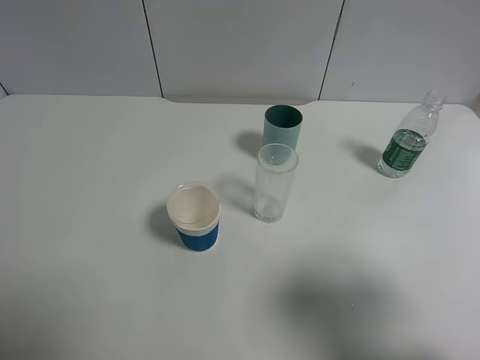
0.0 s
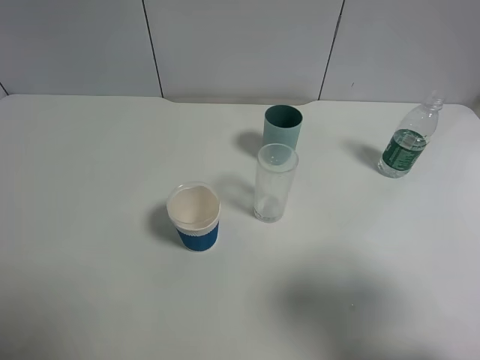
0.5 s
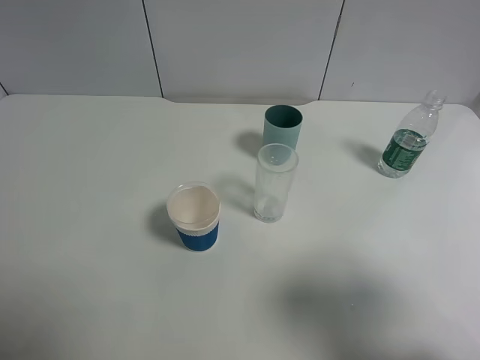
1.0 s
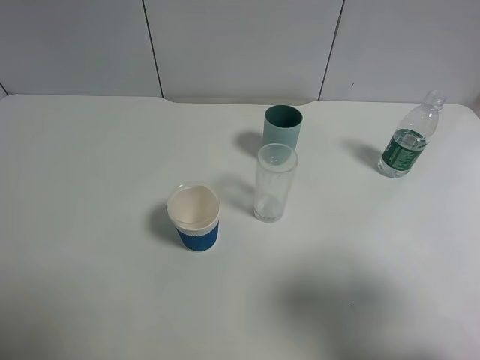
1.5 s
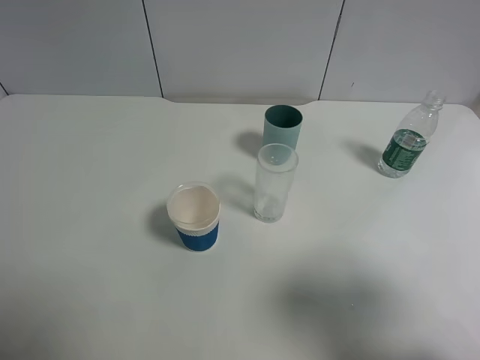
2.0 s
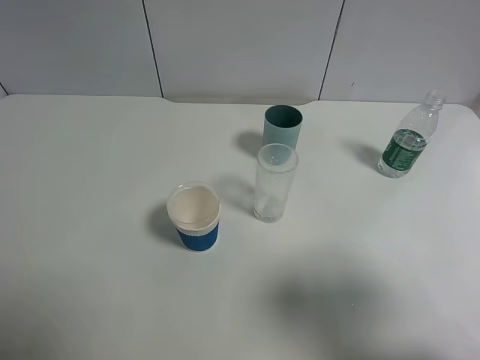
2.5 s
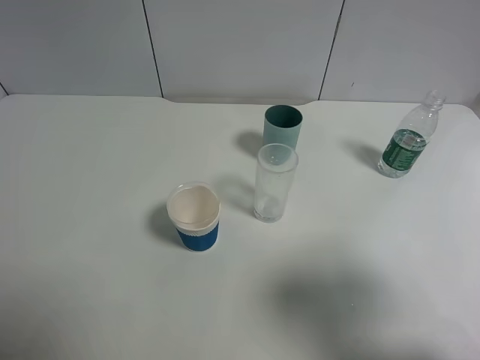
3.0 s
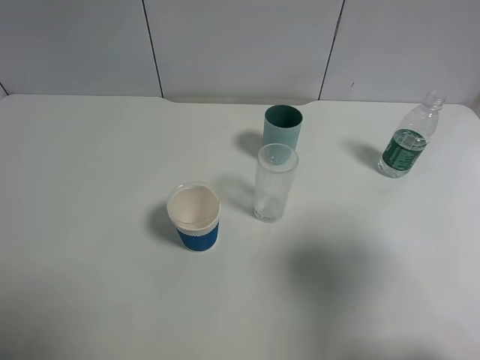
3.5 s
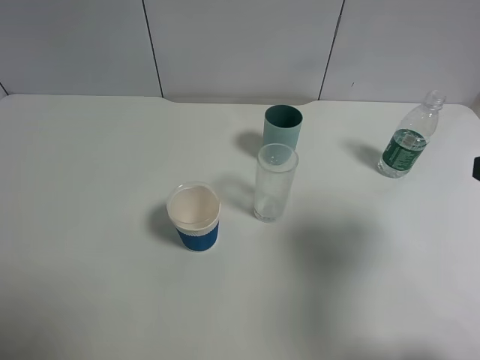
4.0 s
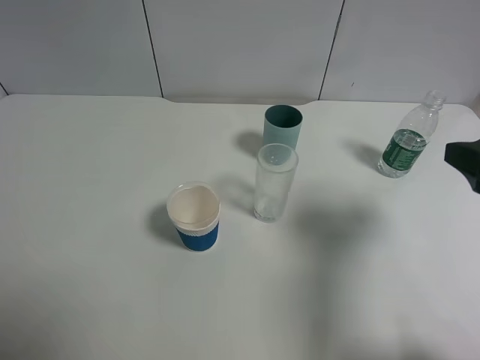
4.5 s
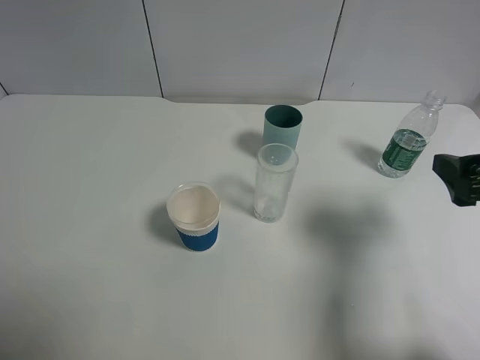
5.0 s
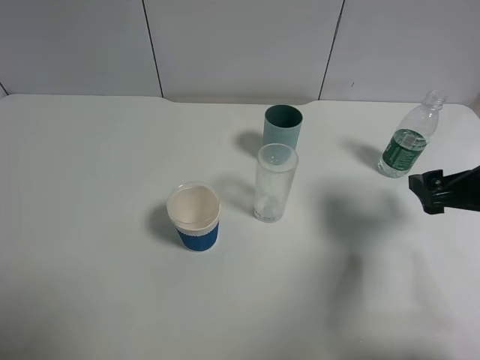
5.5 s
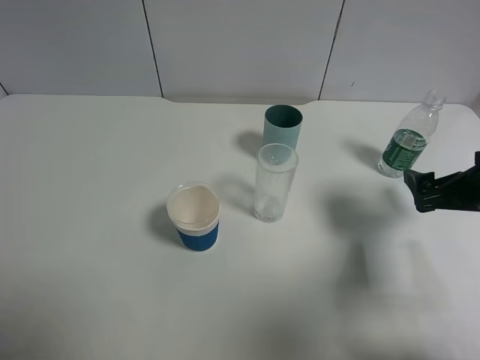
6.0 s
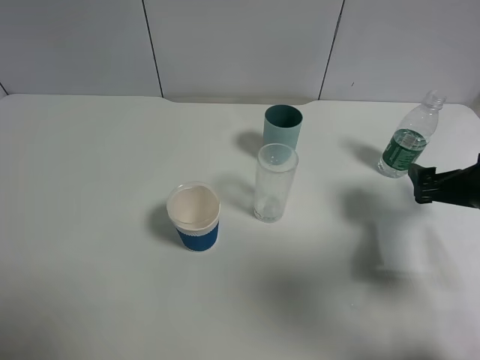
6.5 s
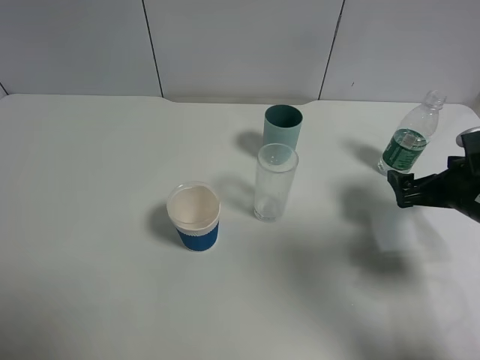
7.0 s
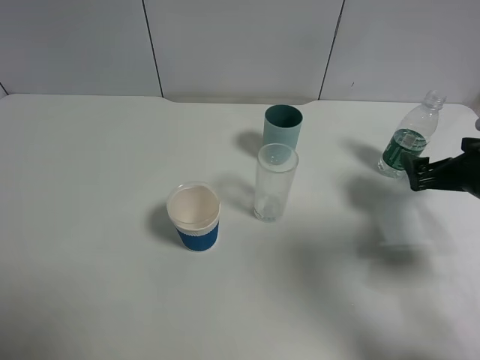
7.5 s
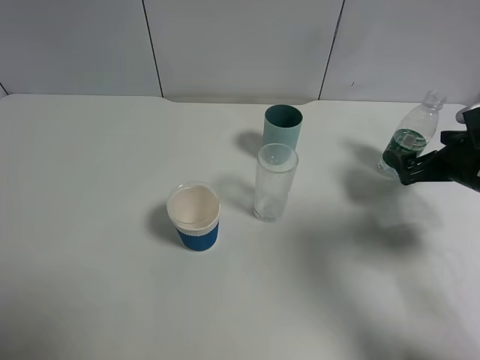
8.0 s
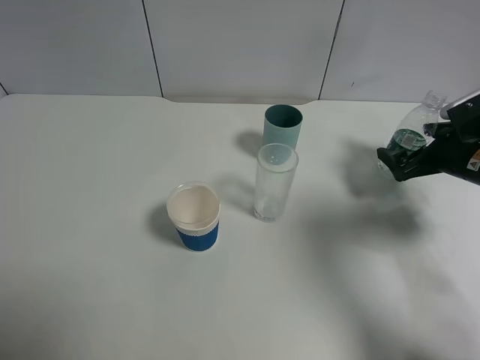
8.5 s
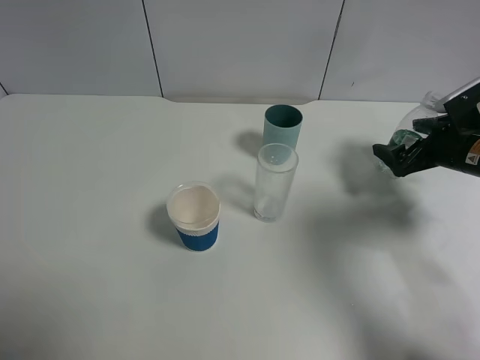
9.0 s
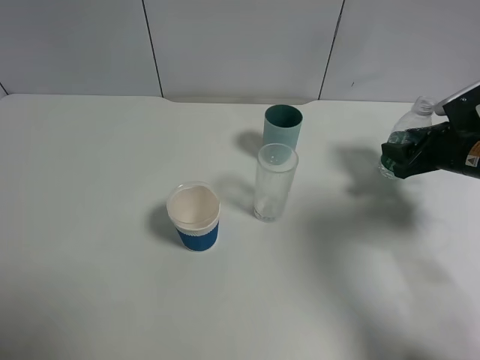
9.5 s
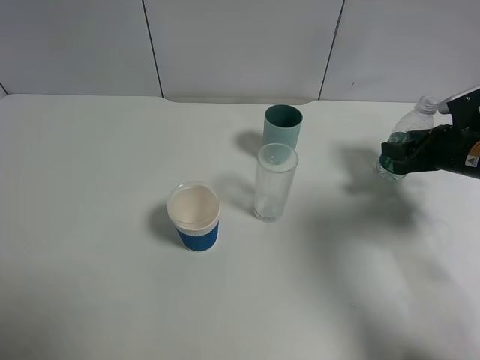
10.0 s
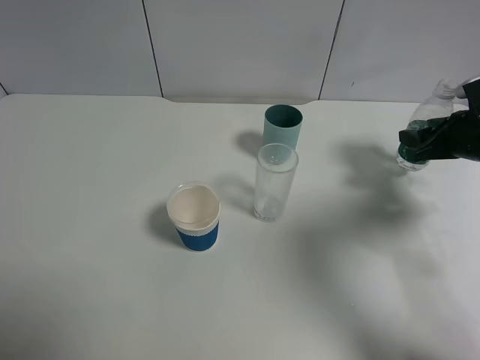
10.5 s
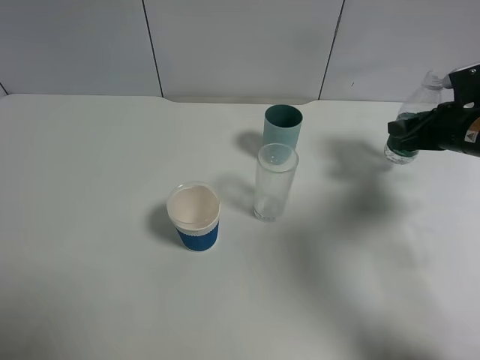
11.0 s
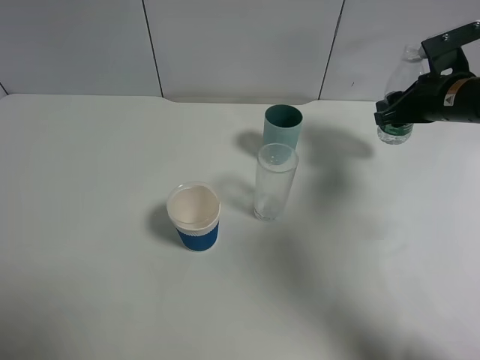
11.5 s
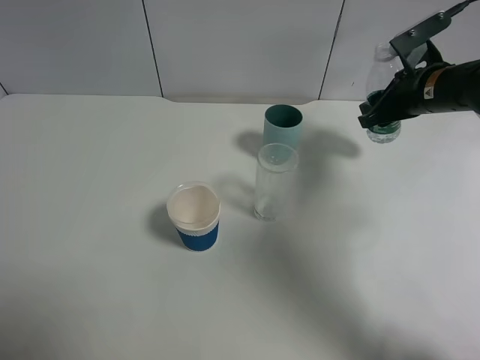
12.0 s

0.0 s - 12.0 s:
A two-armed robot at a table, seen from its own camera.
Task of the whole recording: use a gripper to hold the bottle of the drink and pour it into a random cup.
Step, 0.0 s - 10.0 s: Grasp the mineral water bottle with the right gripper.
0.0 s - 2.0 s: Neither gripper changes place.
2.0 s - 4.0 s: The right gripper moves forward, roughly 10 cm.
4.0 s - 6.0 s: The right gripper goes some 15 cm downward and forward.
6.0 s - 8.0 s: The right gripper moves forward and downward, about 10 cm.
8.0 s - 10.0 s: The right gripper closes.
10.0 s - 12.0 s: The right gripper heads upward and to the left, covering approximately 10 cm.

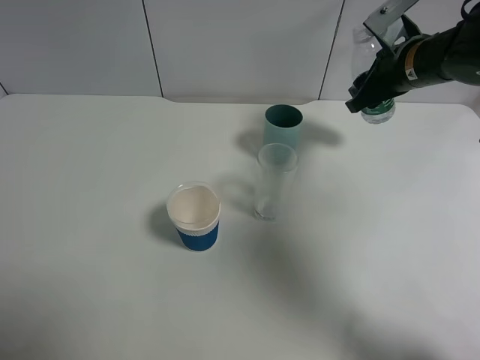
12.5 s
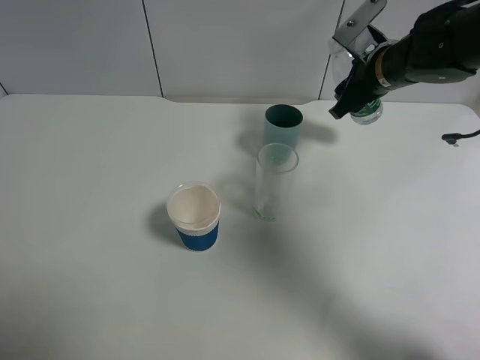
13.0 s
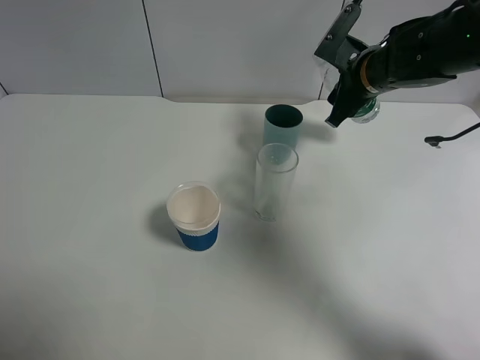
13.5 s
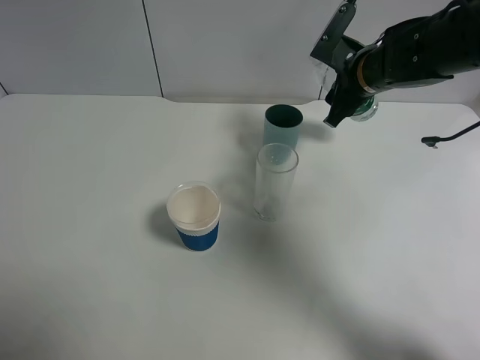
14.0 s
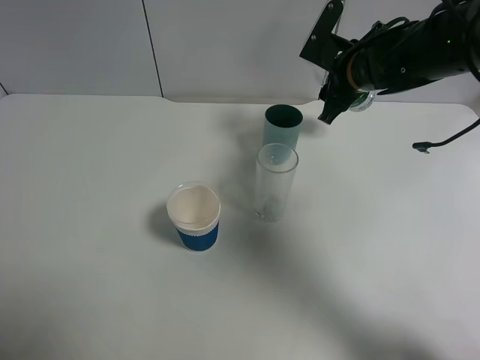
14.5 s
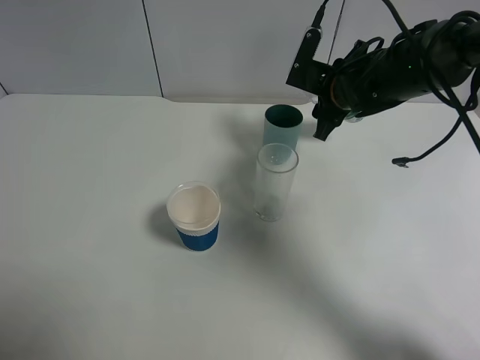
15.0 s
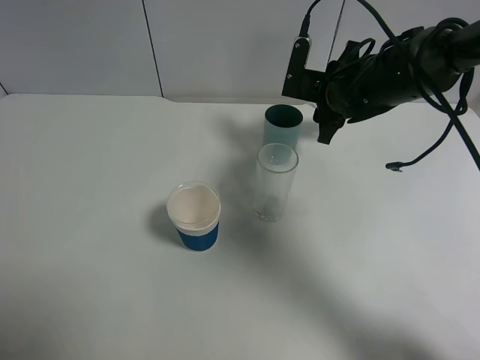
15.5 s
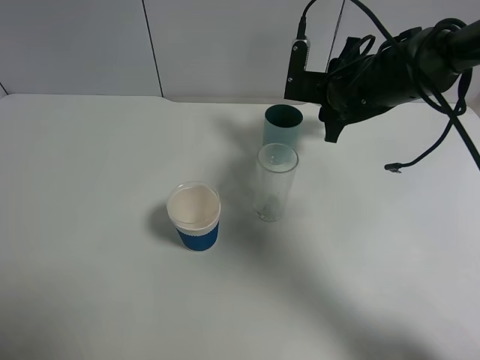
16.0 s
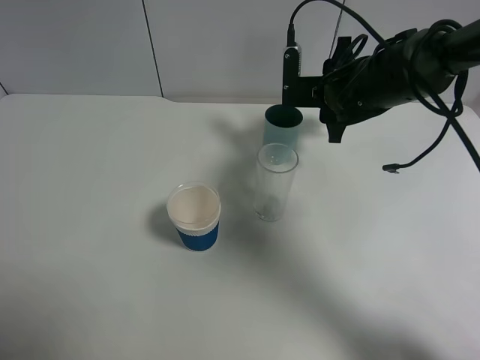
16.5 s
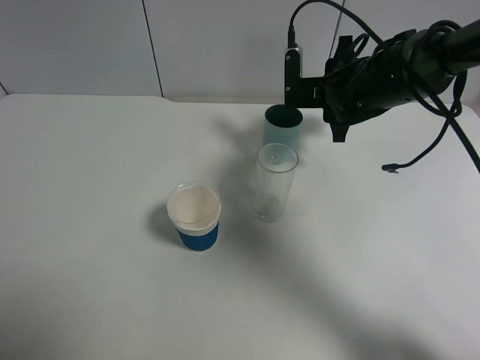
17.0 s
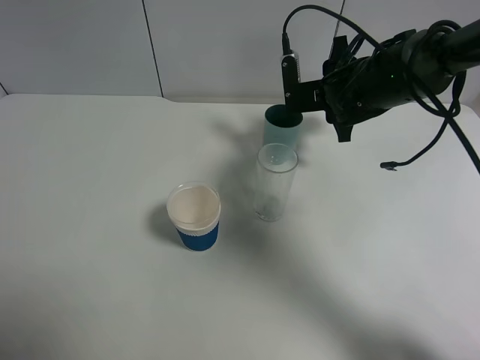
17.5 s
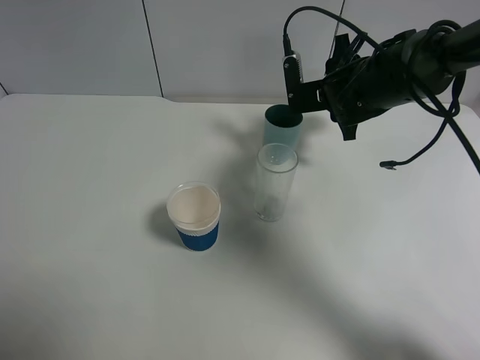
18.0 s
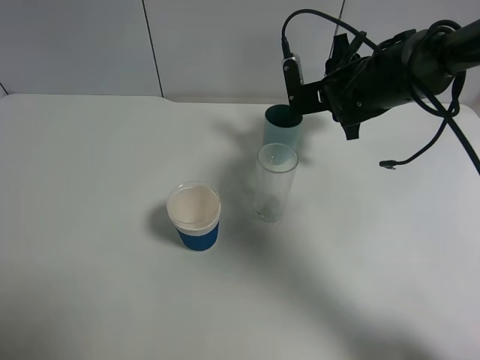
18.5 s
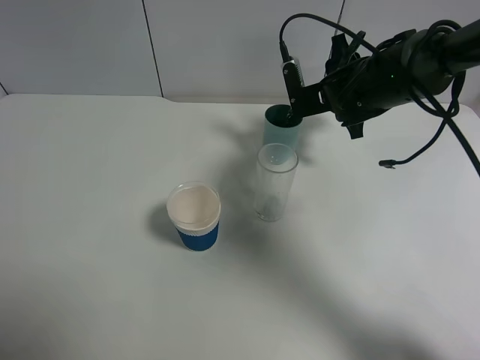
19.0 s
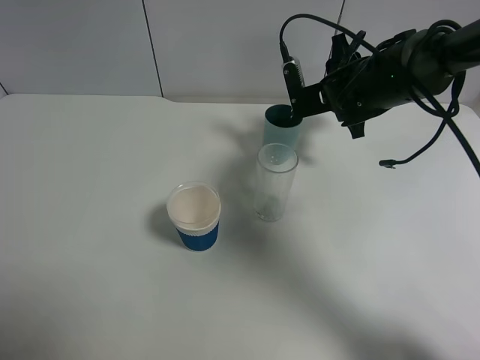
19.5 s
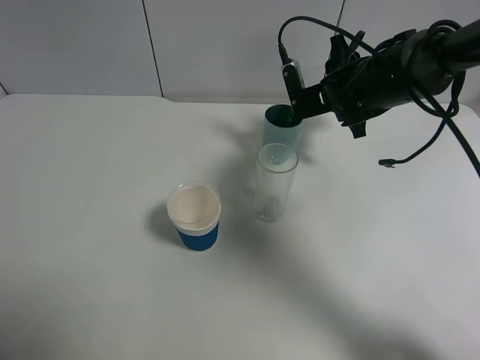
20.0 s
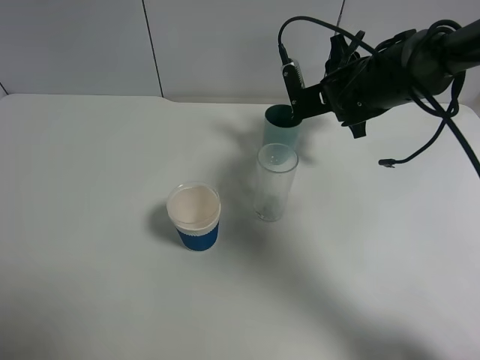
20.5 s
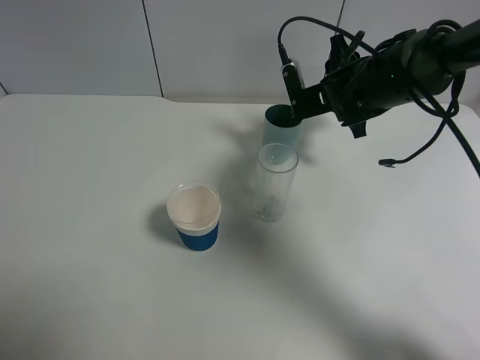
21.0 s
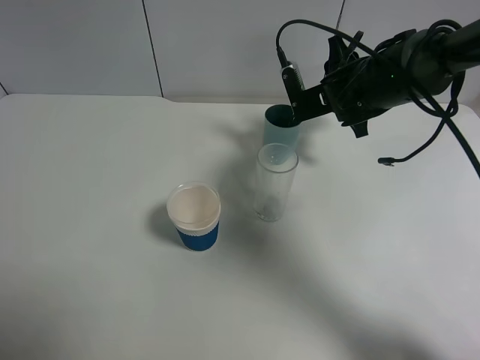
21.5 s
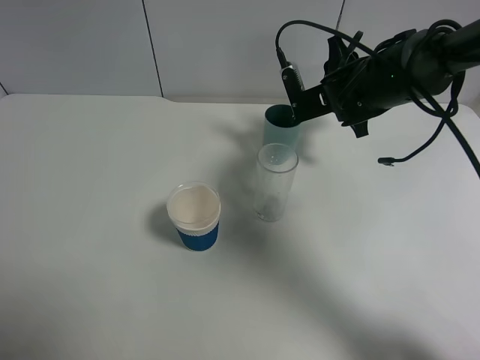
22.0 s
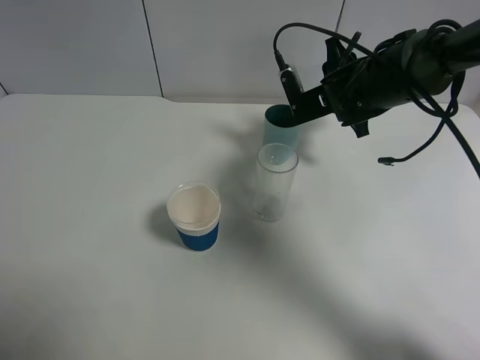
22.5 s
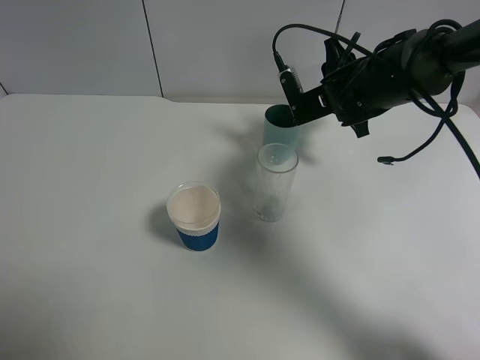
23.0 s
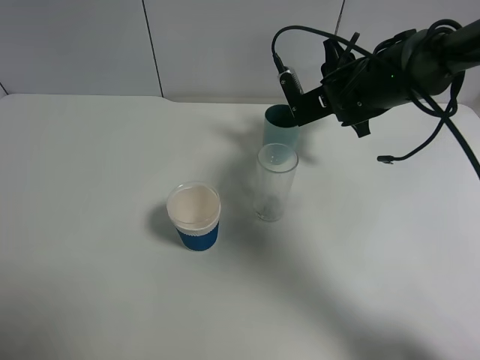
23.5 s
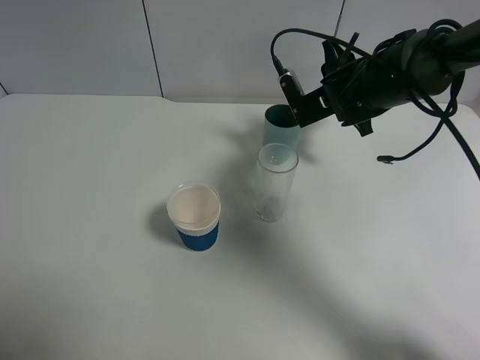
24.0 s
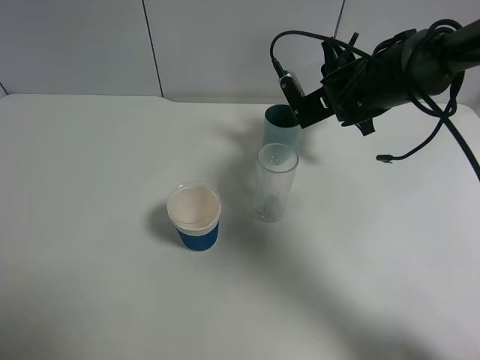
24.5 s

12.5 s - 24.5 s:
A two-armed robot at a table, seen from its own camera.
Task of the whole recording: use a gripper to hold the bottle of the drink and pour it into a random cup.
12.5 s - 14.5 s: The right gripper shifts roughly 5 cm to the left.
16.5 s - 20.5 s: The grippers move only a little.
20.5 s - 24.5 s: The grippers make only small movements.

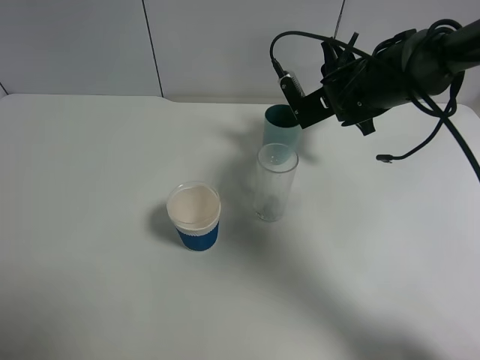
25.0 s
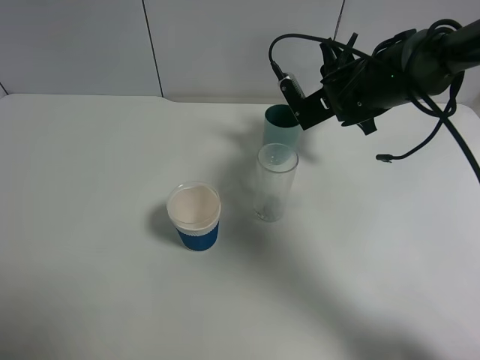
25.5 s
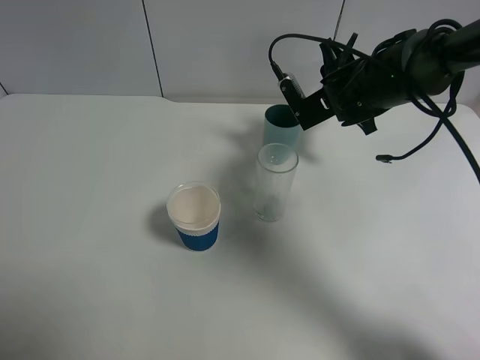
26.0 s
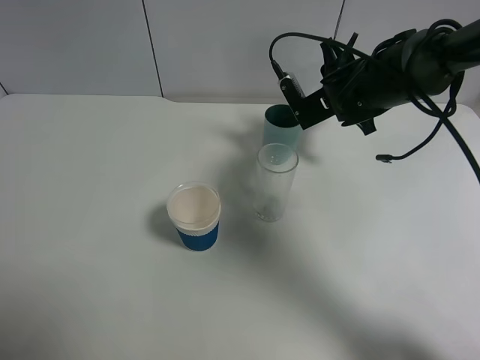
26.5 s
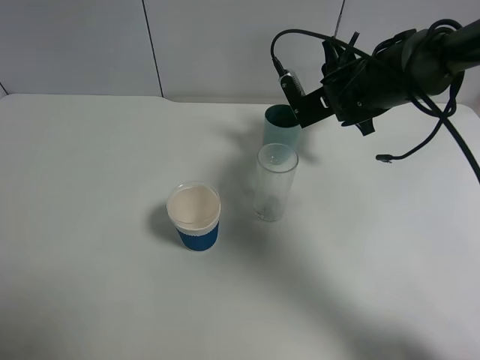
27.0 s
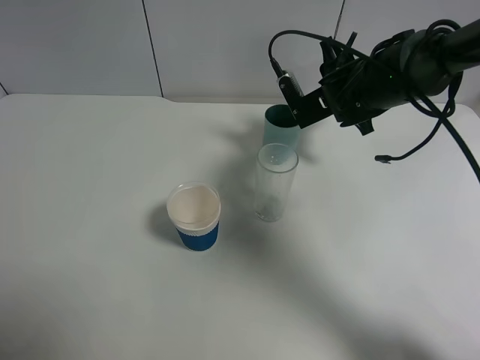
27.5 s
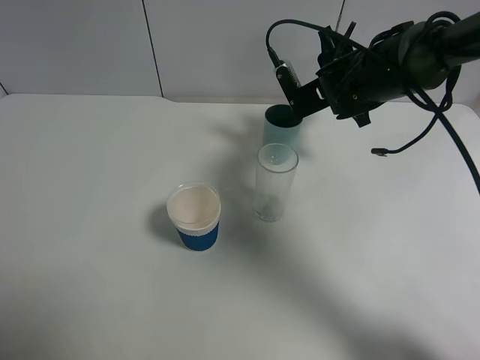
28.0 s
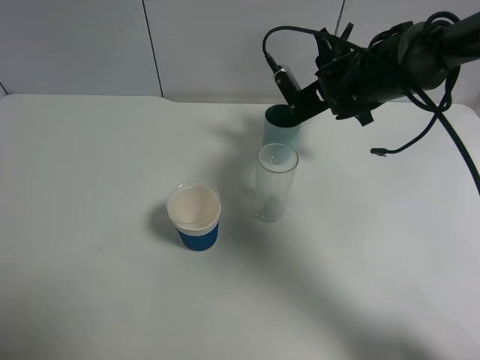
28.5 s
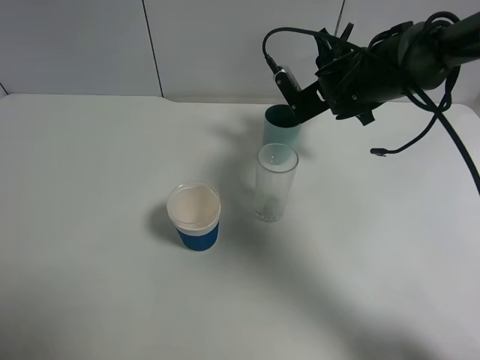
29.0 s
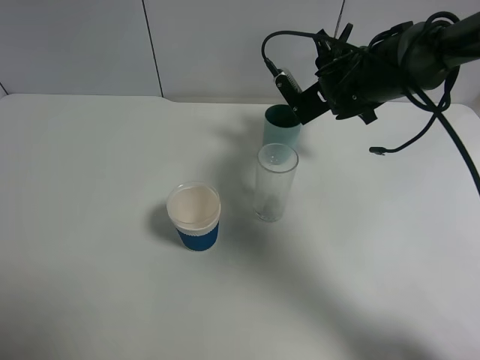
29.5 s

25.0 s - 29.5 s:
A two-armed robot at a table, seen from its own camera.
Task of the whole recording: use a gripper to hold the bottle of the drink and pour it into a random cup.
25.0 s - 27.0 s: Both grippers stay about where they are.
27.0 s - 29.5 s: There are only small adjustments of the grippers.
